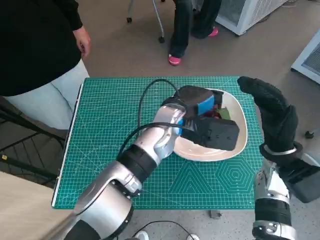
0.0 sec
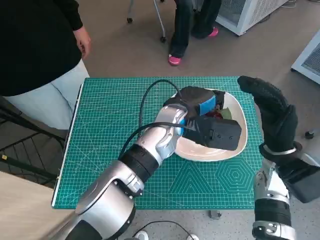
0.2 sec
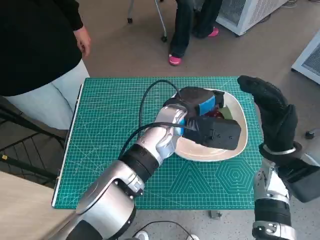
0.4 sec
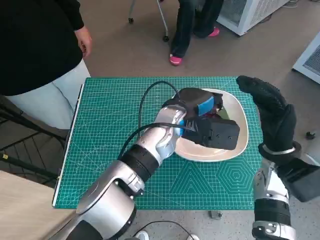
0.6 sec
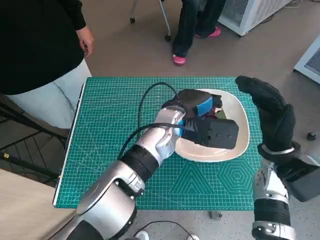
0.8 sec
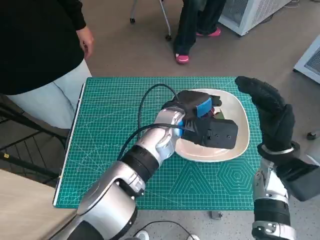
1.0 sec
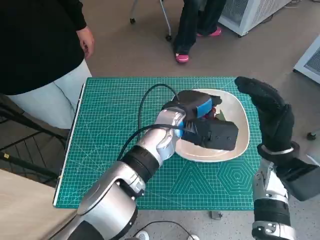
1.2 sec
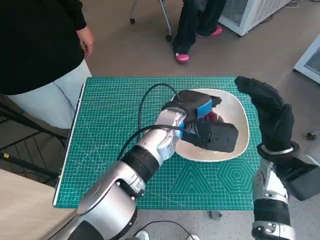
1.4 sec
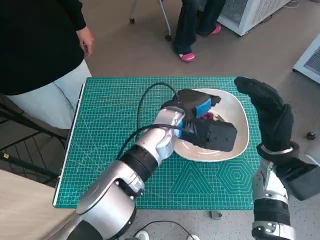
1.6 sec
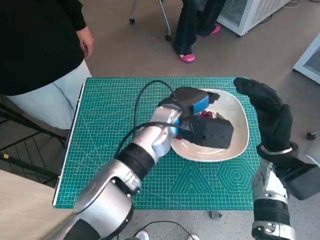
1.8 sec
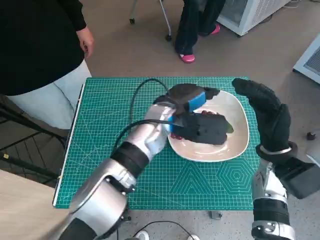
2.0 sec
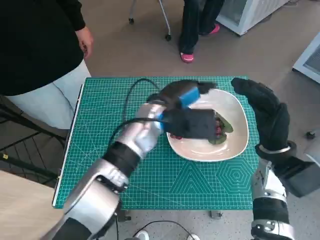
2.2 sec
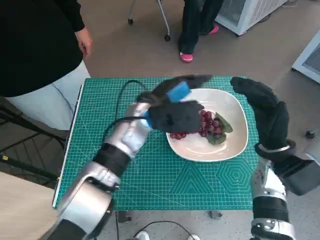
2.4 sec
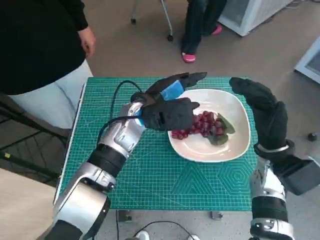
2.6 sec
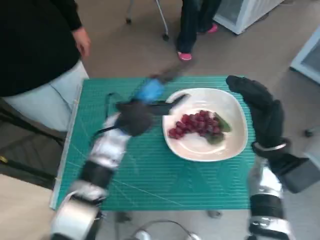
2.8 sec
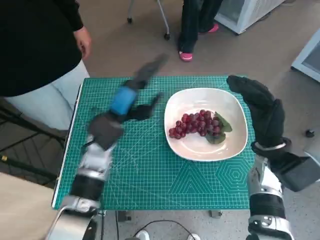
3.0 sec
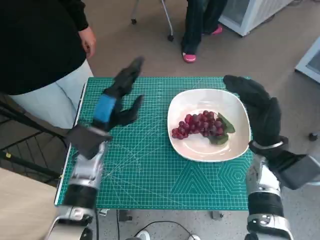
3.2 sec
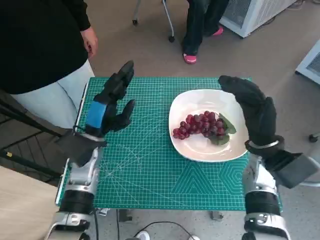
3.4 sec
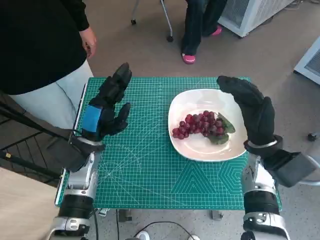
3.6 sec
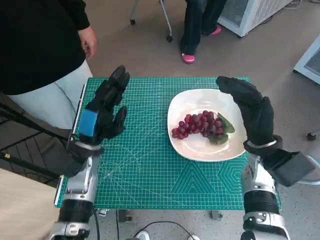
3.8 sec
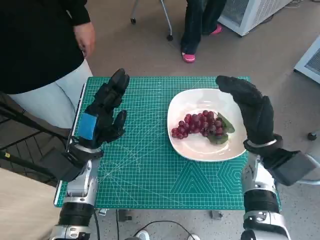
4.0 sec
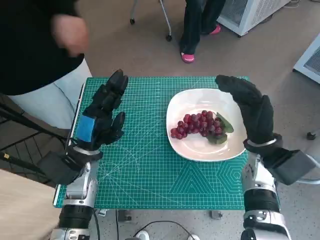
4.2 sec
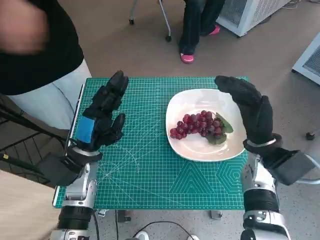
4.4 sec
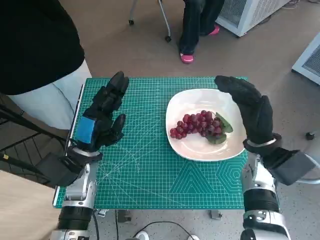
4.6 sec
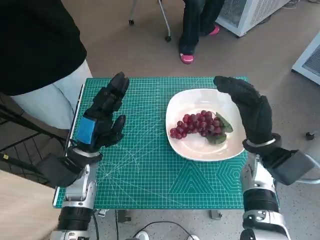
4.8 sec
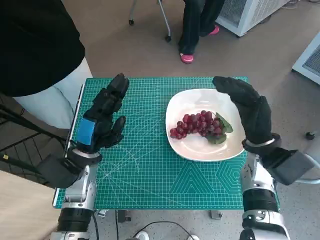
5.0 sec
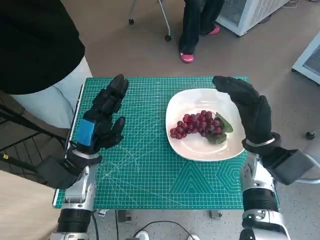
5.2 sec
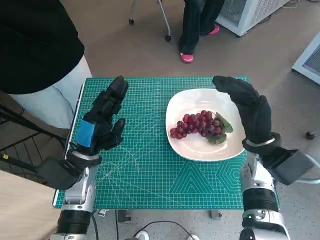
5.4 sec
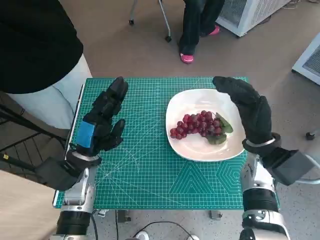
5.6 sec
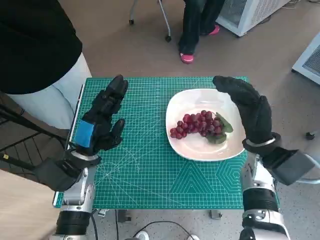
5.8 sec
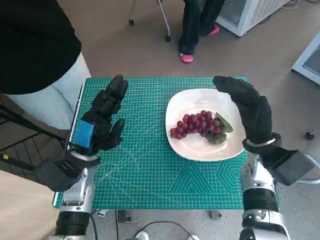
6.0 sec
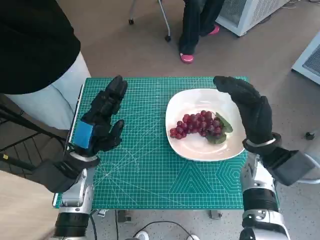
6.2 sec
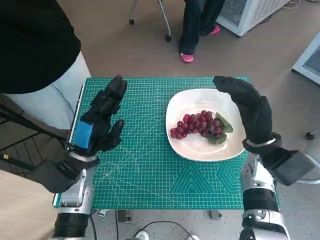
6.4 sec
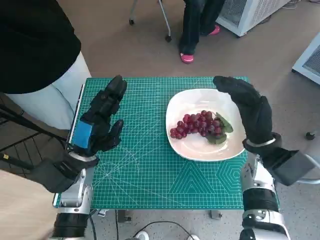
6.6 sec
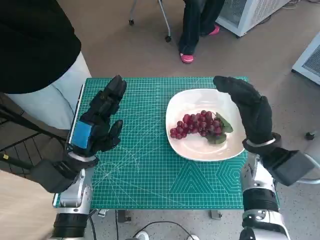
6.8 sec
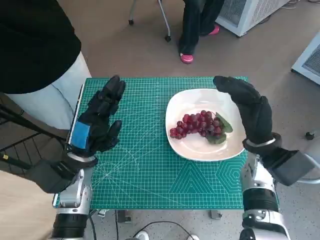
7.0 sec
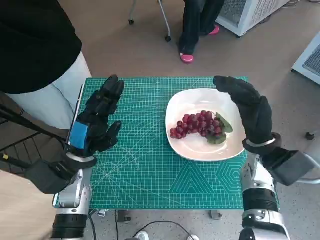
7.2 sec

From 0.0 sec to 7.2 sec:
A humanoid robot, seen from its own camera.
Task of the whole recording: Pick up the grapes and put them on the plate.
From 0.0 sec to 1.4 sec: The hands move only a little.
From 1.4 sec to 2.8 sec: The left hand moves to the left, about 10 cm.
From 2.8 sec to 4.4 sec: The left hand heads to the left, backward and downward, covering approximately 15 cm.
From 4.4 sec to 5.8 sec: Neither hand changes place.
From 5.8 sec to 7.2 sec: Both hands stay about where they are.
